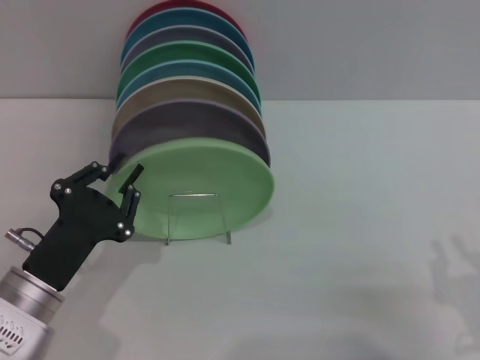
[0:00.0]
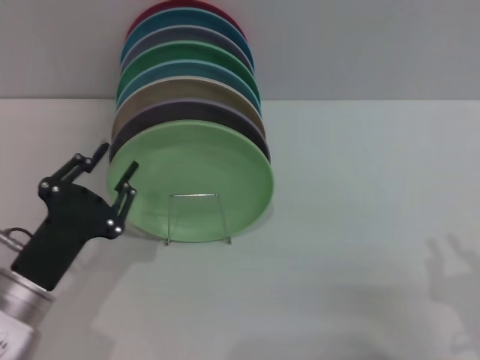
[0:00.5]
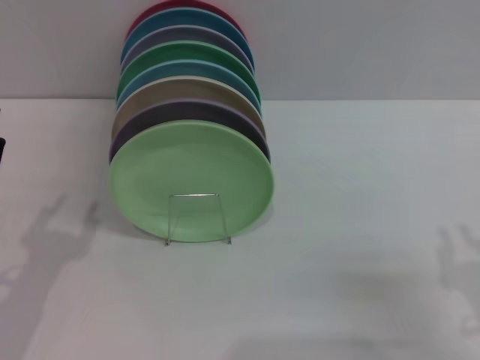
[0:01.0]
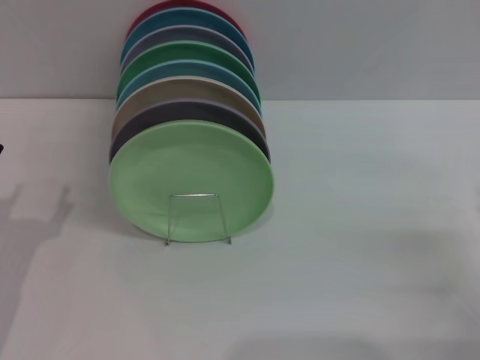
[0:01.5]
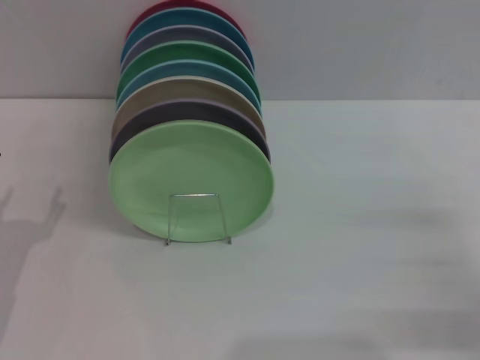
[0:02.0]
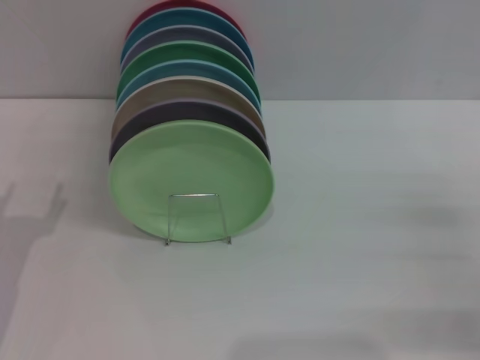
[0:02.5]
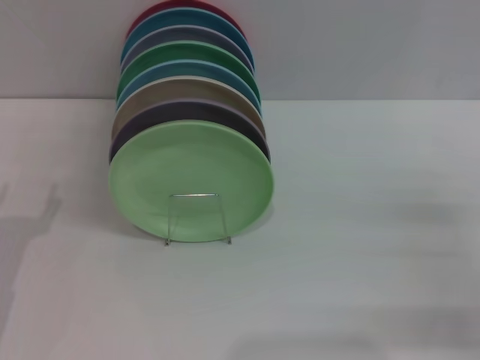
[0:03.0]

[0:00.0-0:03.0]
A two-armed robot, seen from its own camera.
Task of the whole recording: Grip the plate with one hand, pass it to the other, then set it on the shelf.
0:00.0 to 0:01.5: The left gripper moves to the left, some 10 cm, and opens up. The right gripper shifts about 10 cm to the right and forward.

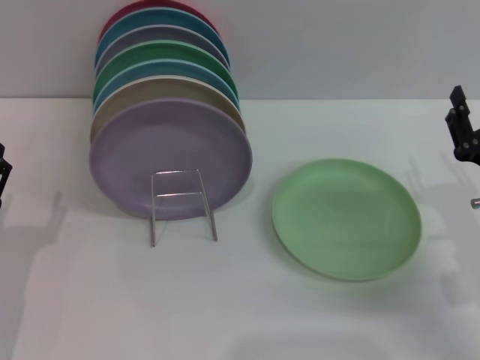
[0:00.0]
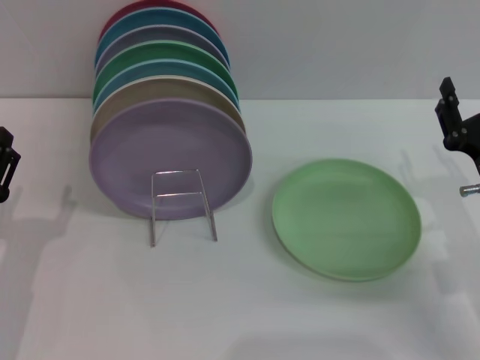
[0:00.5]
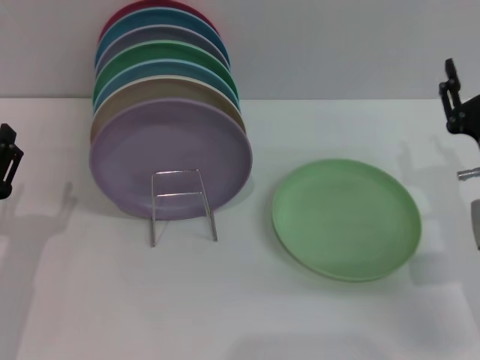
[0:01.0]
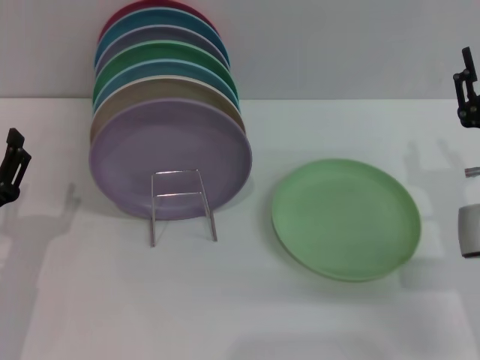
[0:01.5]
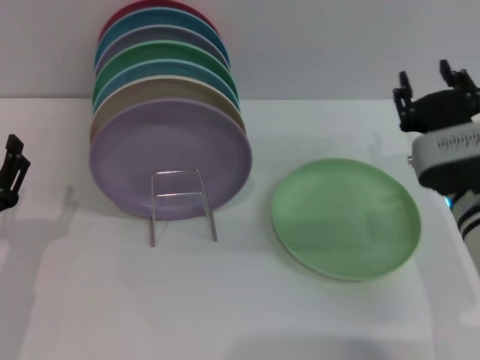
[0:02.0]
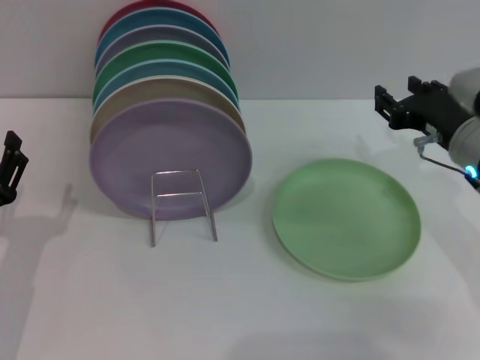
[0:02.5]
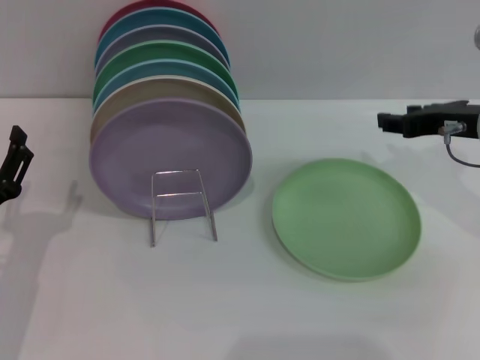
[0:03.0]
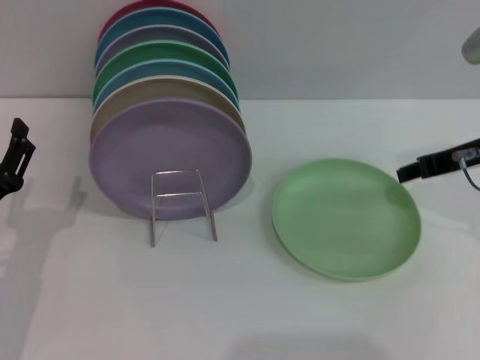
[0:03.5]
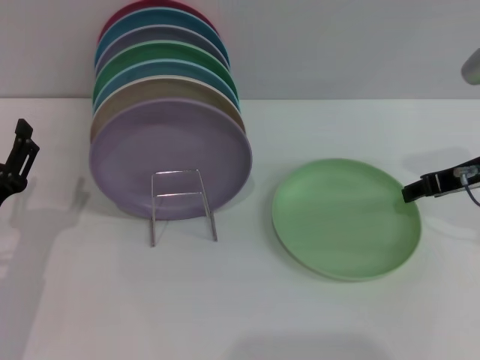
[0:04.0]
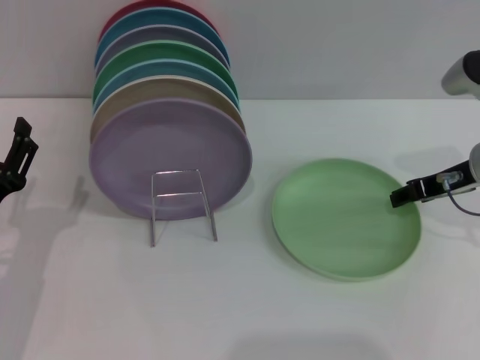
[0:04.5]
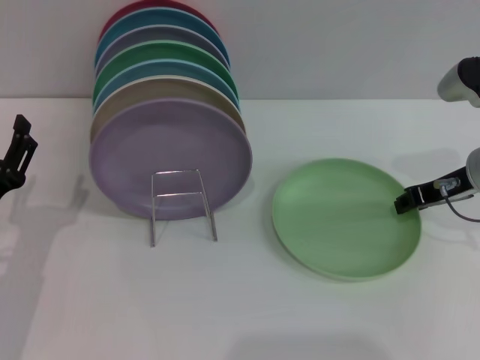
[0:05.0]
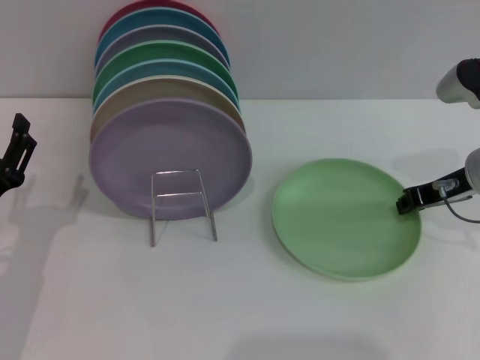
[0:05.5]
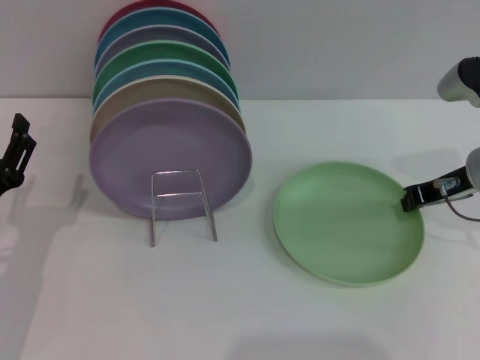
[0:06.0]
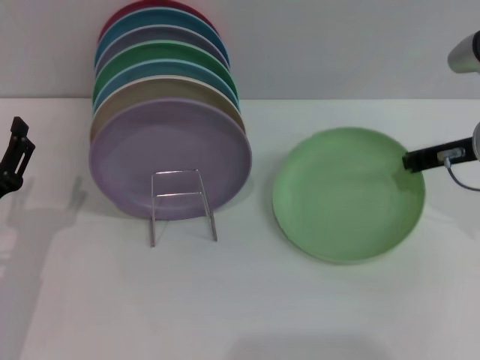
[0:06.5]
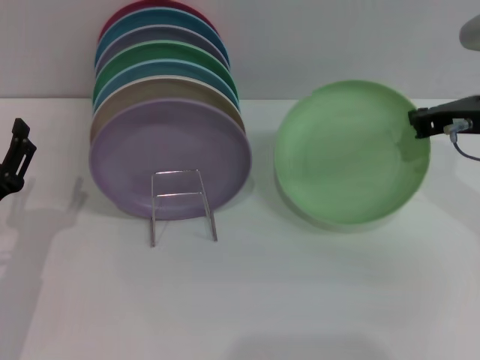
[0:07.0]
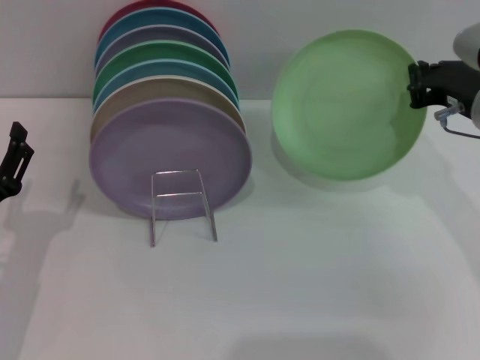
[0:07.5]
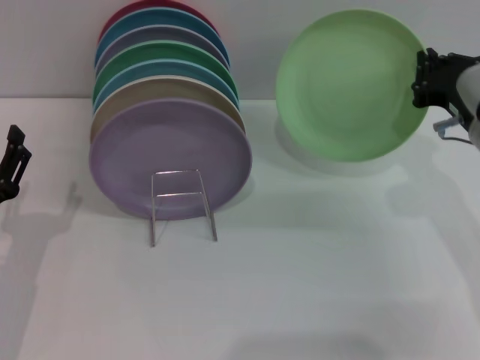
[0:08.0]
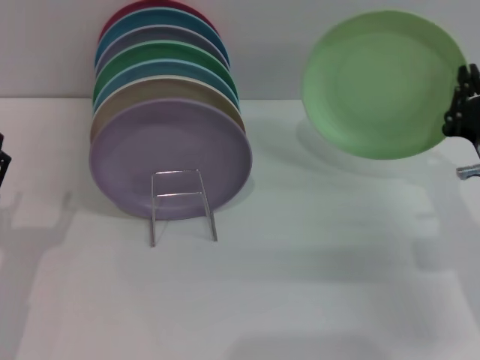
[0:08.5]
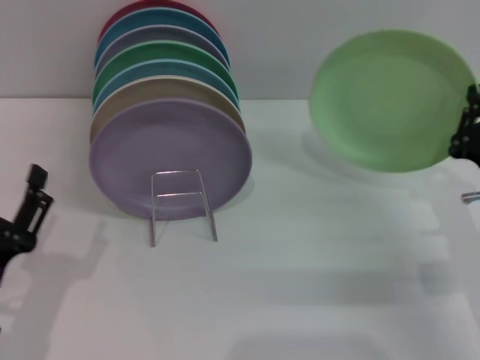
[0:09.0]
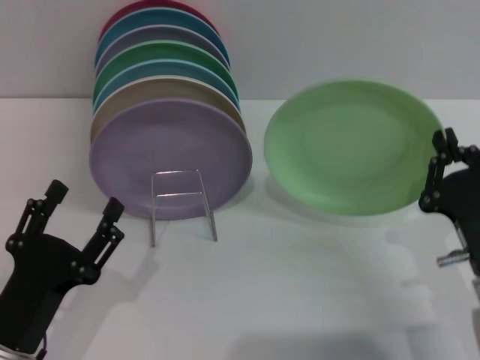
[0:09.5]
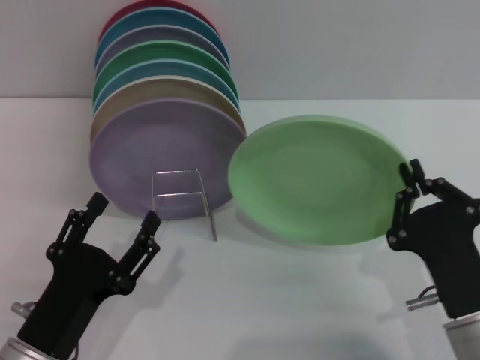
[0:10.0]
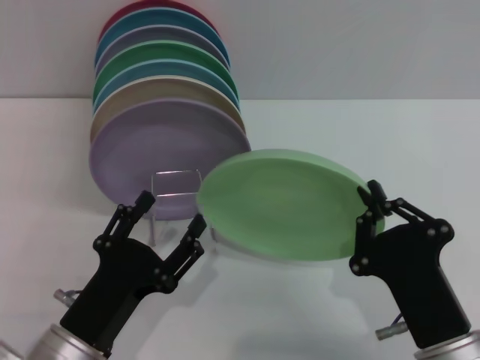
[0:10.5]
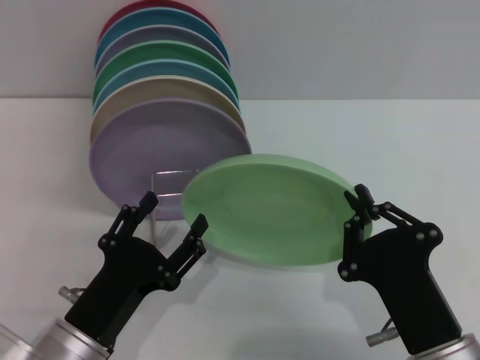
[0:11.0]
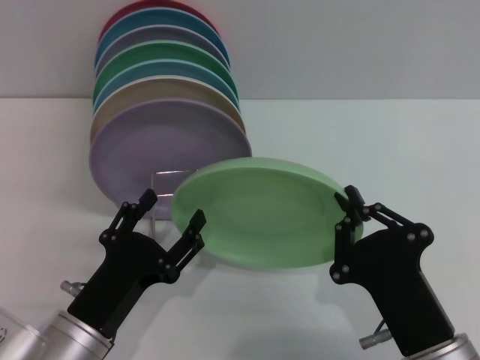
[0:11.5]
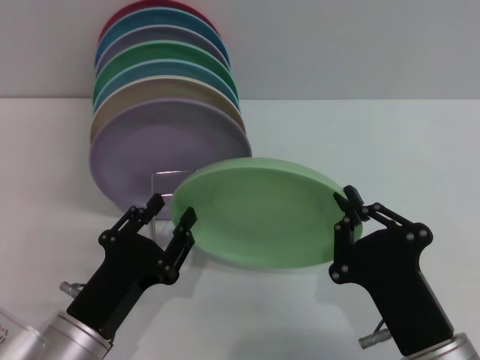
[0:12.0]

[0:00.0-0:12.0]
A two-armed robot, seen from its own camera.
Task of the whole recording: Grip the plate with one hand, pass it to the other, then set it on the shelf.
Step, 0:00.0 to 0:07.0: Pick up the plate with the right gripper.
0:00.0 to 0:02.0: The right gripper moves to the left and forward, approximately 10 cm.
0:02.0 to 0:04.0: The right gripper is displaced upward and to the right by about 10 cm.
0:04.0 to 0:06.0: The right gripper closes its fingers.
0:08.0 to 0:10.0: The right gripper shifts some 20 cm backward and downward; the left gripper travels backward and to the right by approximately 10 cm.

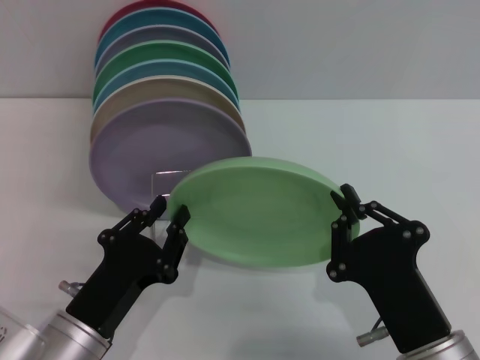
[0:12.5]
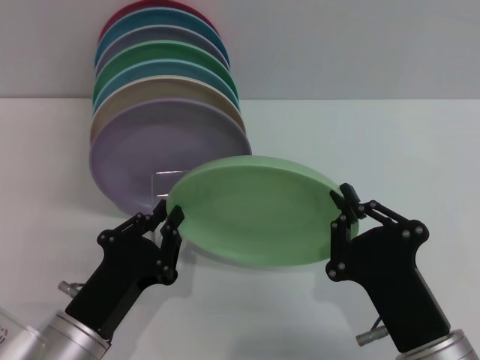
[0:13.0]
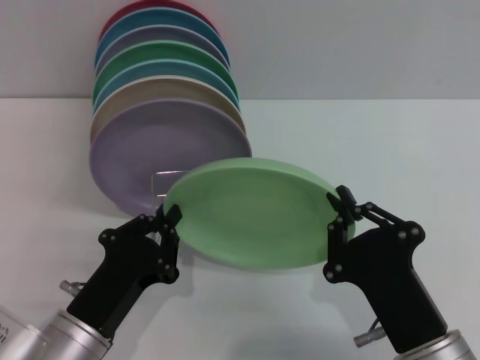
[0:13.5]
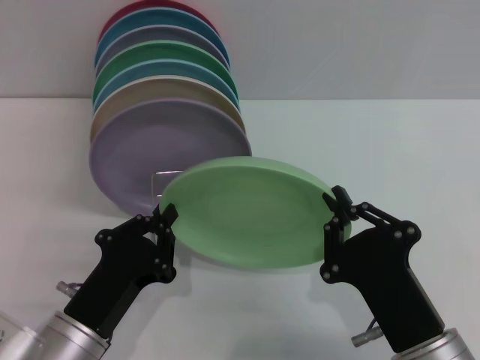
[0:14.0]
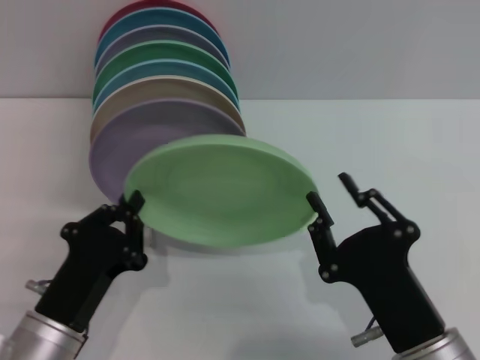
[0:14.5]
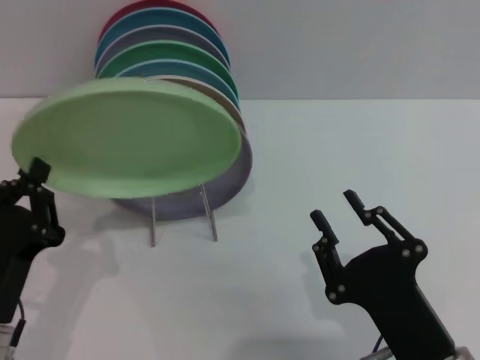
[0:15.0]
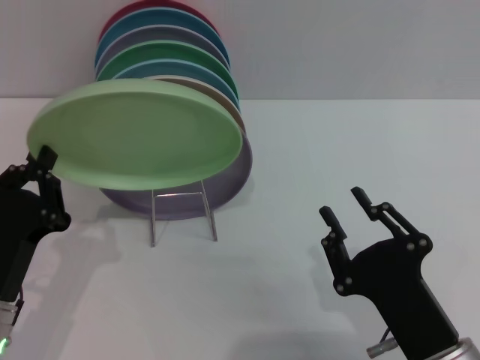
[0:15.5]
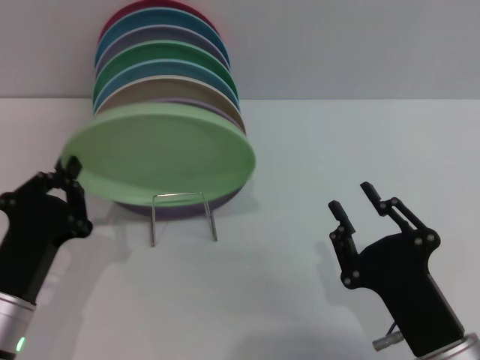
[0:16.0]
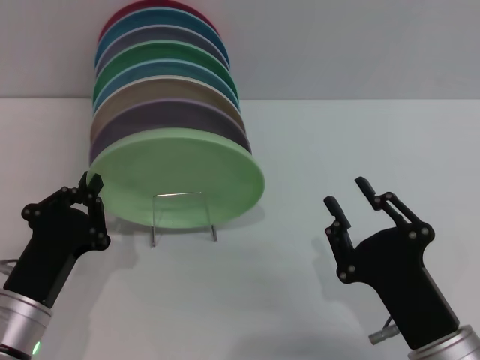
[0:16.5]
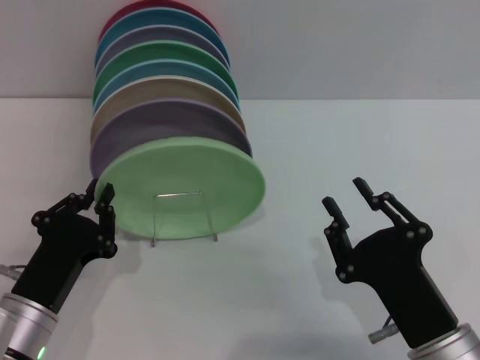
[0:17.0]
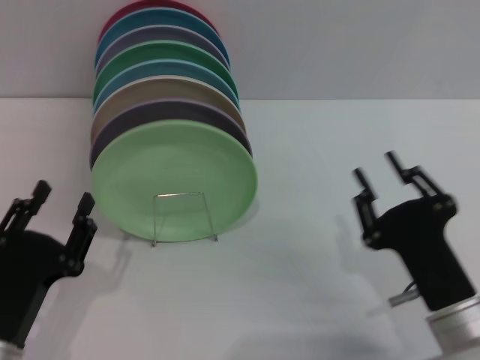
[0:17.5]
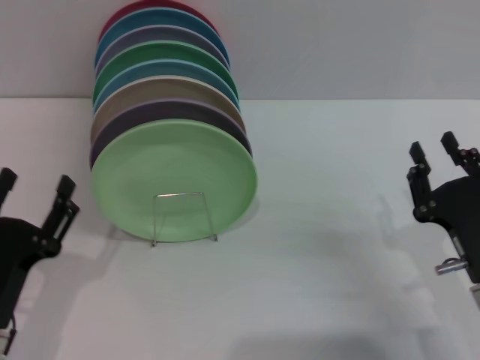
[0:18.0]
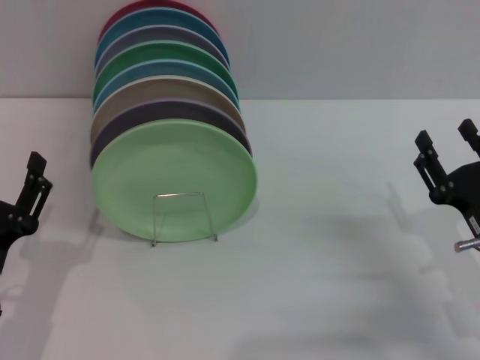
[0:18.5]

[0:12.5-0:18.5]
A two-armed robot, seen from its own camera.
Task of the whole recording: Grip the plate with one hand, pass it to the other, then set it on the shelf.
Step, 0:14.5 to 0:17.5: Place the plate on the shelf with the left gripper.
0:12.5 to 0:14.5: The left gripper closes its fingers.
0:14.5 to 0:16.5: The right gripper opens its fingers.
0:16.5 to 0:18.5: The left gripper opens; the right gripper heads to the right and forward, covering about 10 cm.
